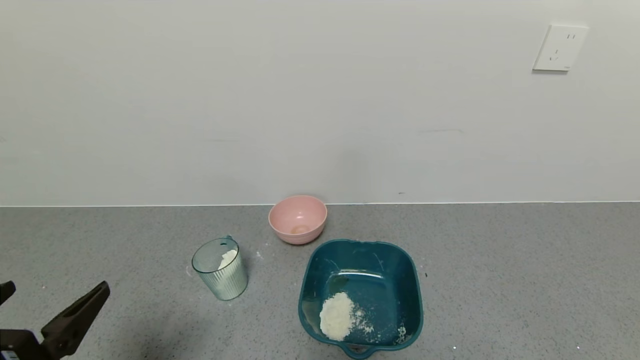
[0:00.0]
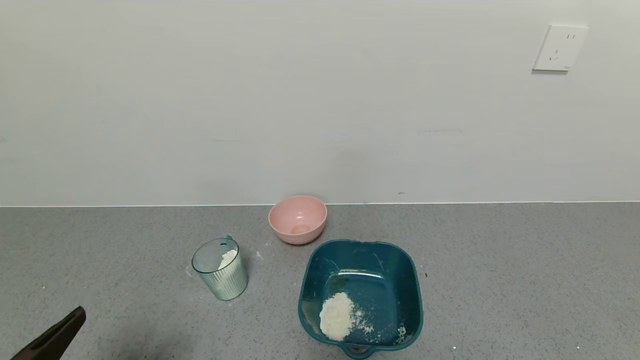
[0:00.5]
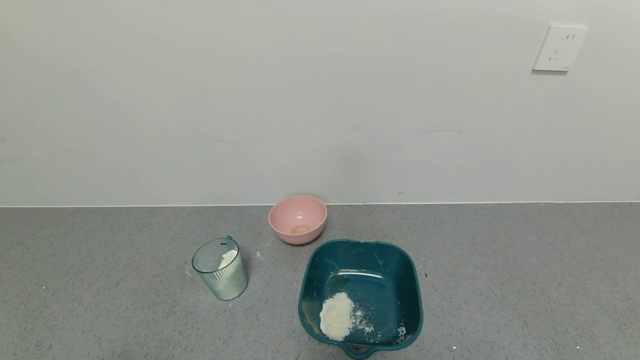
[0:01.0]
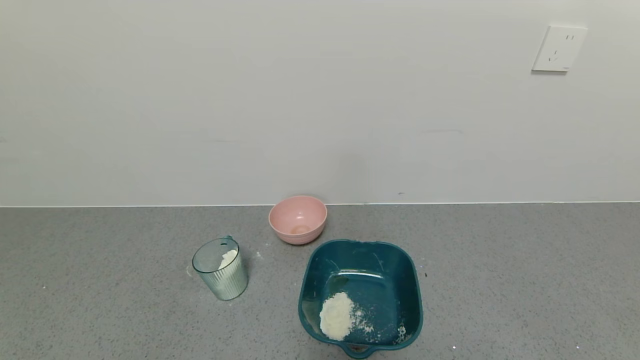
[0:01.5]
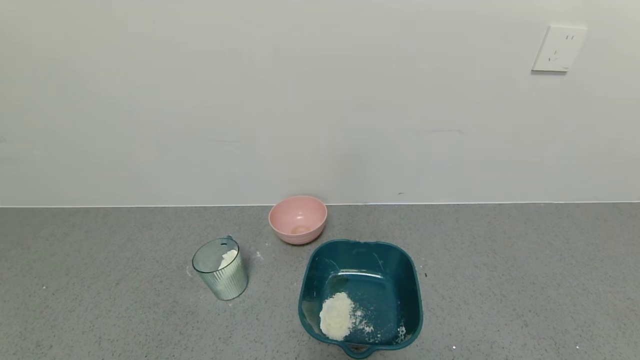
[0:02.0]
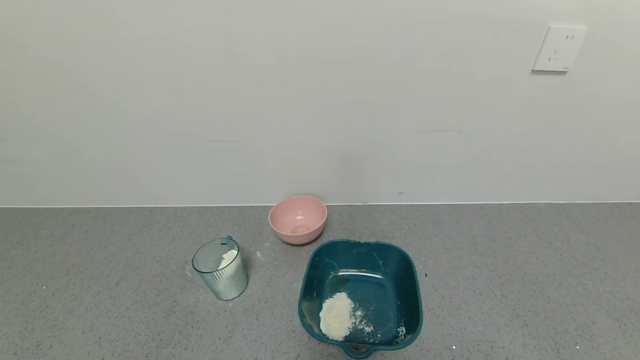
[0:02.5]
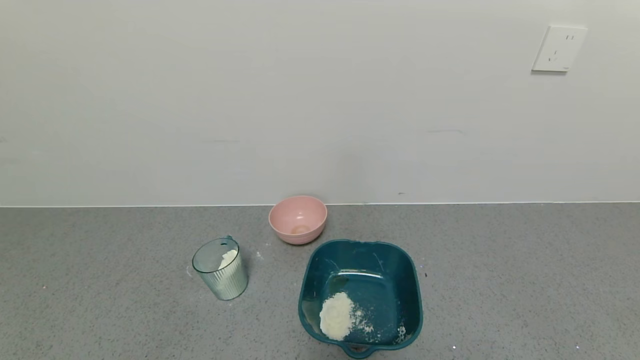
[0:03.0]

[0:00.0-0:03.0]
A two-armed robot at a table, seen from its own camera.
Task of the whole recording: use a gripper to pick up the cup and pour the powder into a bowl or tray.
0:00.0 to 0:01.5: The left gripper goes some 10 cm backward and downward.
